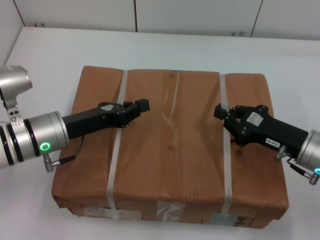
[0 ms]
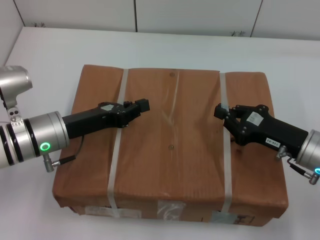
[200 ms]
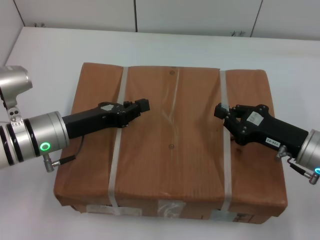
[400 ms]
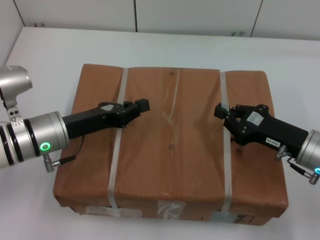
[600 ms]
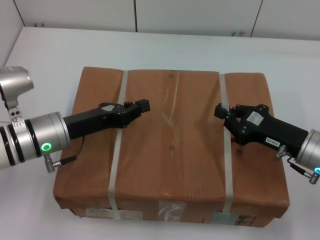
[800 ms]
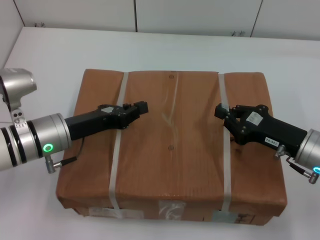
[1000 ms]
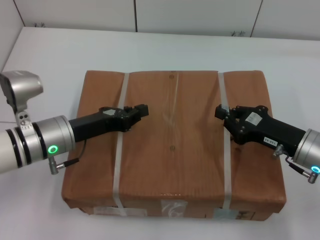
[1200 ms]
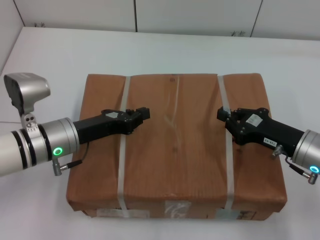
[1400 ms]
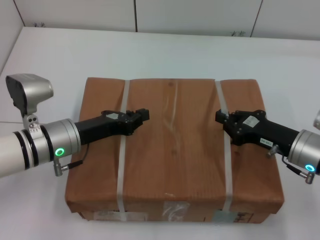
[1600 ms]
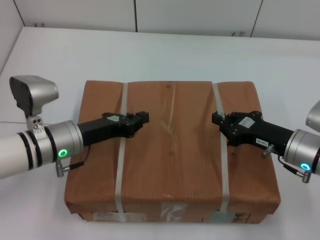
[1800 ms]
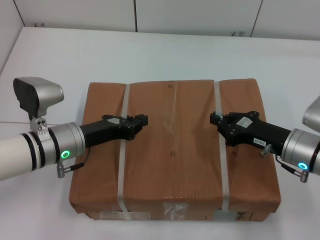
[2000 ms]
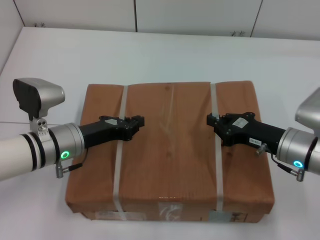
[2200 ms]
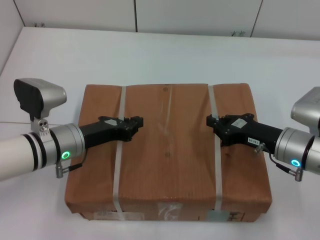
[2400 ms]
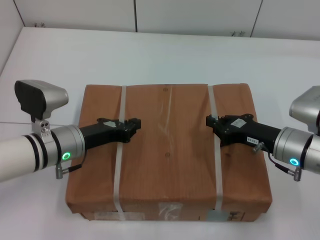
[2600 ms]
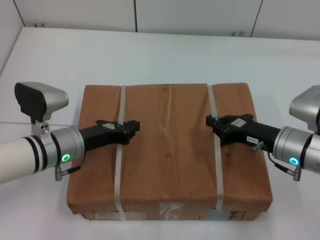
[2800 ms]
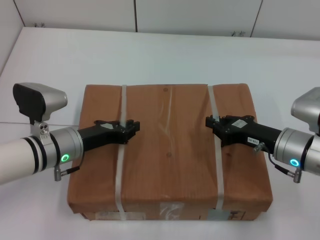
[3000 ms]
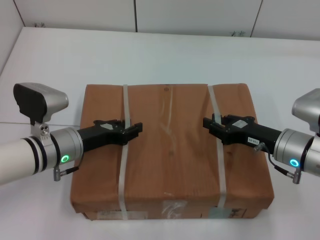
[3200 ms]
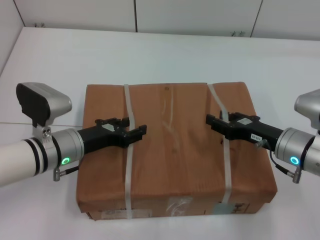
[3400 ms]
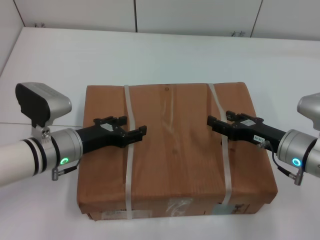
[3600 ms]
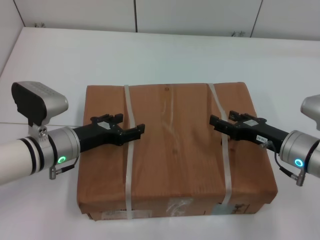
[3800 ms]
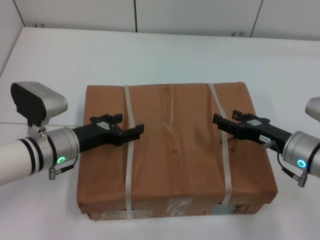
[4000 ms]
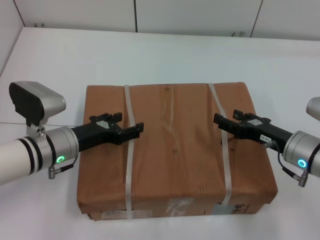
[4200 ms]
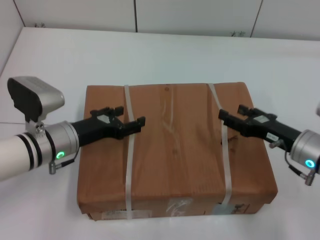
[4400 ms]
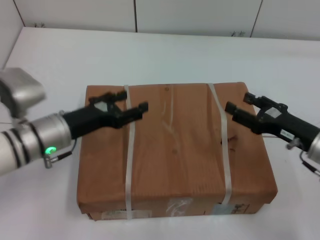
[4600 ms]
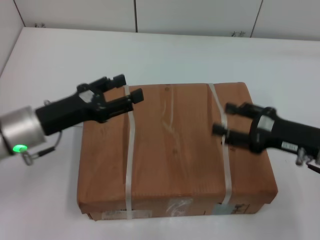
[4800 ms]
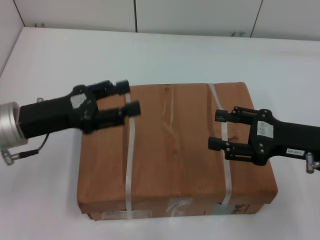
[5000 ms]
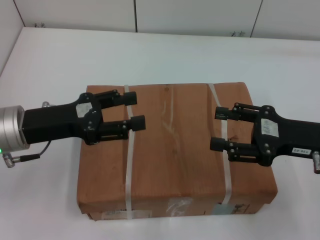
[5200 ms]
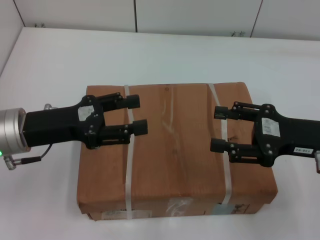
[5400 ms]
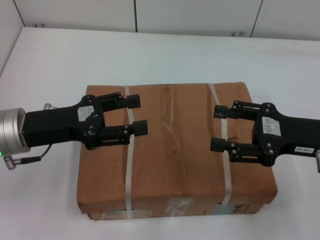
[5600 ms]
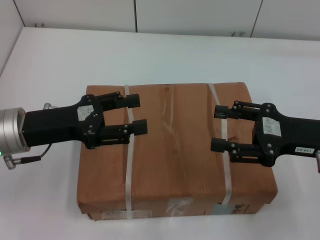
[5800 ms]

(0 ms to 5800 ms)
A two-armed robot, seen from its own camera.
Task of the whole recording: place the box on the table with both arms.
Step, 0 ms - 2600 ms: Place the box on the table with left gripper.
Step, 0 ms - 2600 ms: Place the box on the table with right gripper.
Step, 2800 ms - 3600 ms: Loosen the box on the table with left gripper.
Step, 2800 ms - 3600 ms: Loosen the box on the table with right gripper.
0 ms - 1400 ms: There are only small adjustments of the grippers.
2800 ms - 4400 ms: The right gripper opens up. Meanwhile the left gripper opens up.
4400 ms - 5800 ms: Both grippers move upward, some 10 cm.
